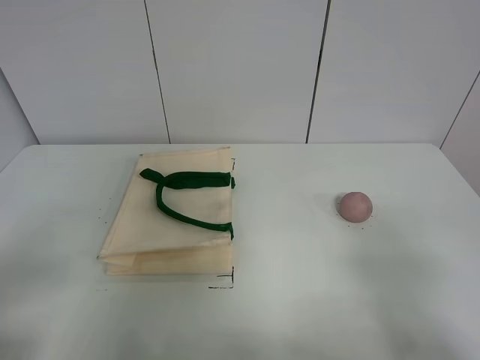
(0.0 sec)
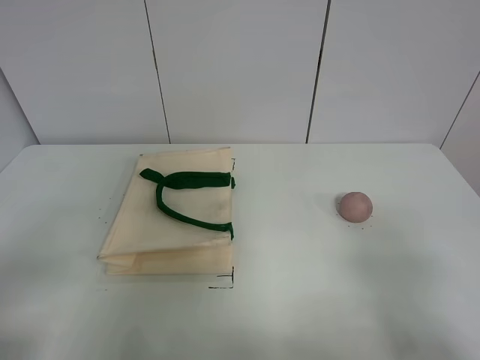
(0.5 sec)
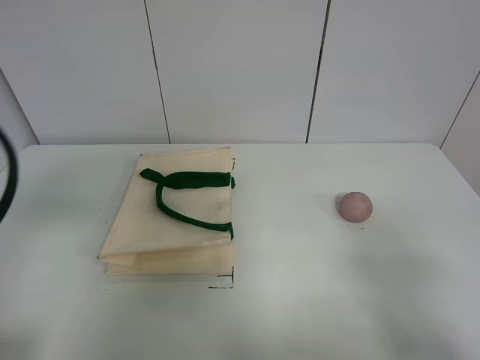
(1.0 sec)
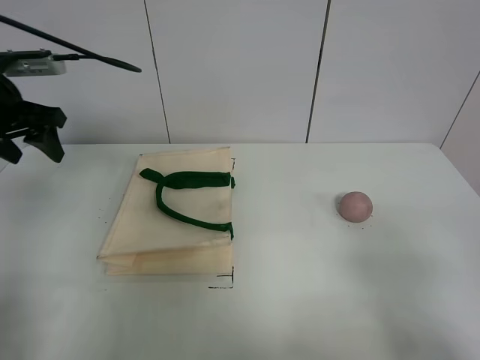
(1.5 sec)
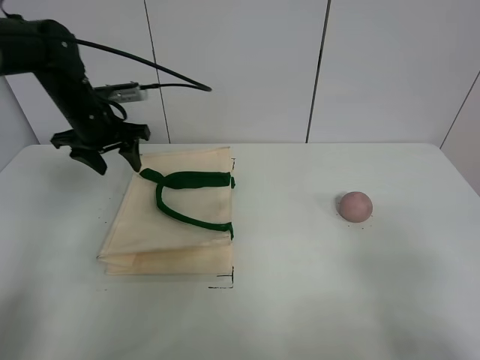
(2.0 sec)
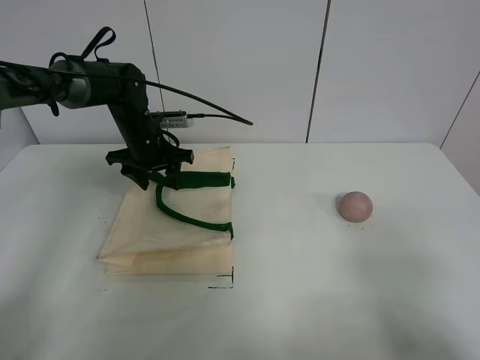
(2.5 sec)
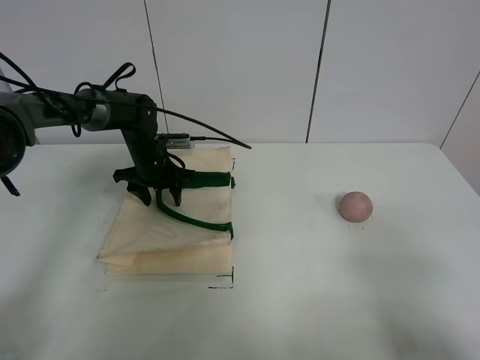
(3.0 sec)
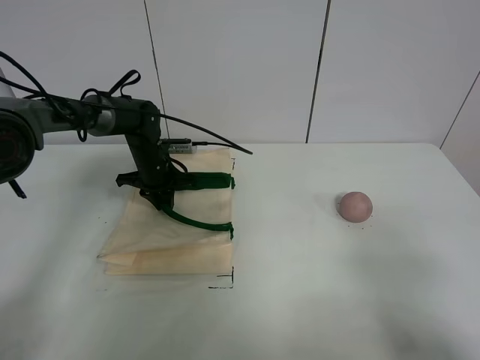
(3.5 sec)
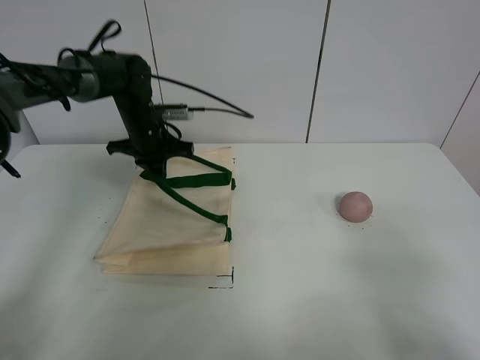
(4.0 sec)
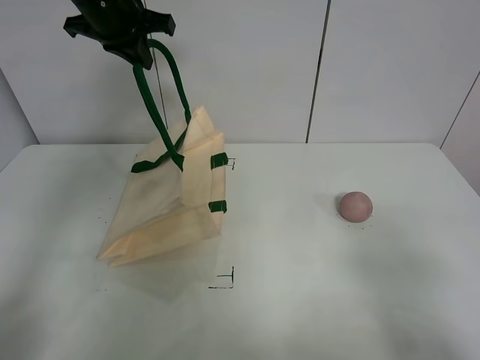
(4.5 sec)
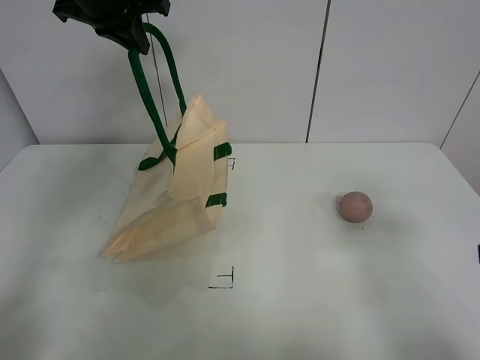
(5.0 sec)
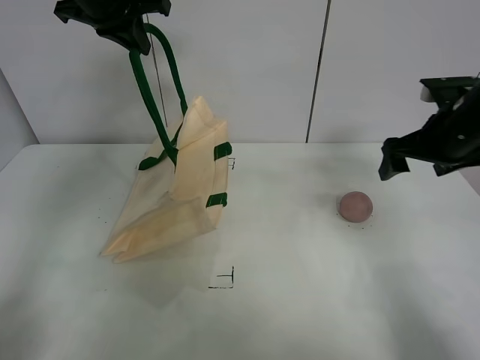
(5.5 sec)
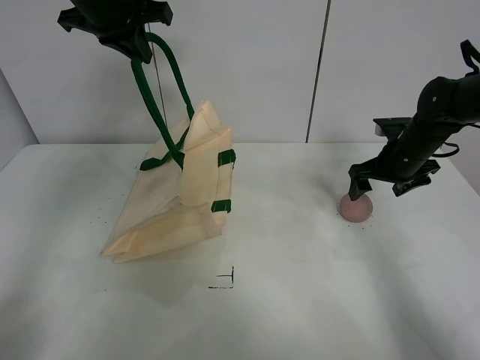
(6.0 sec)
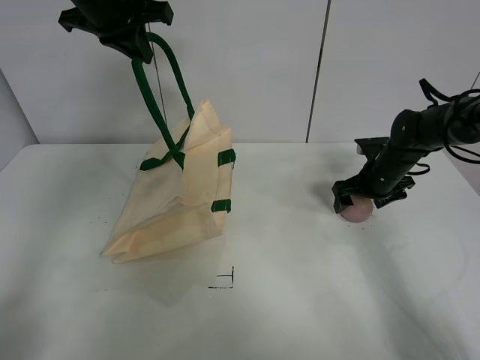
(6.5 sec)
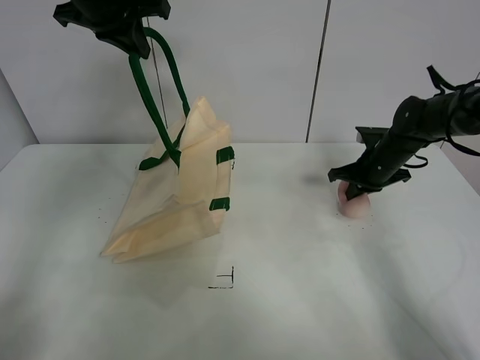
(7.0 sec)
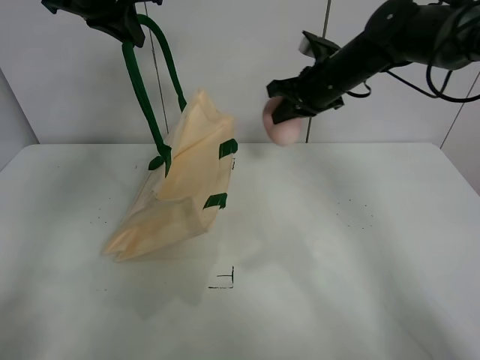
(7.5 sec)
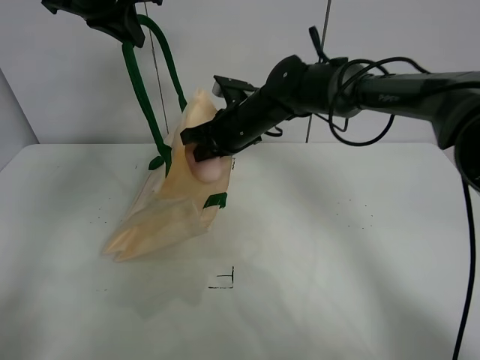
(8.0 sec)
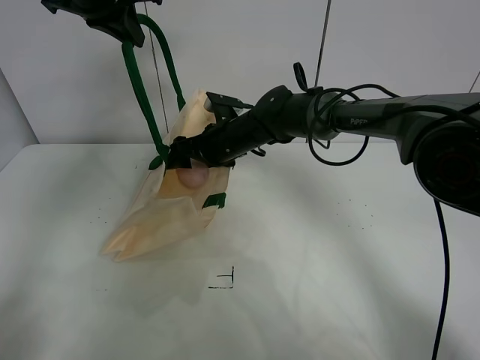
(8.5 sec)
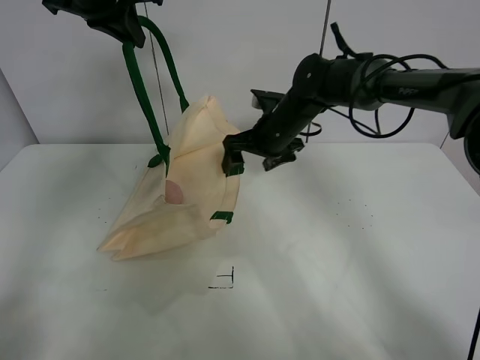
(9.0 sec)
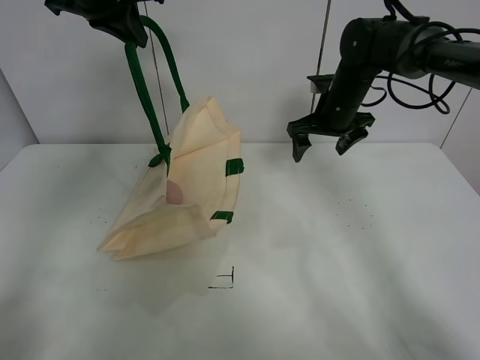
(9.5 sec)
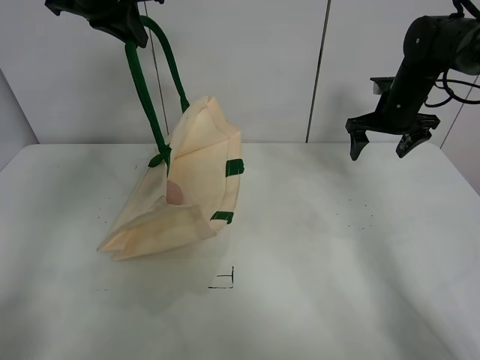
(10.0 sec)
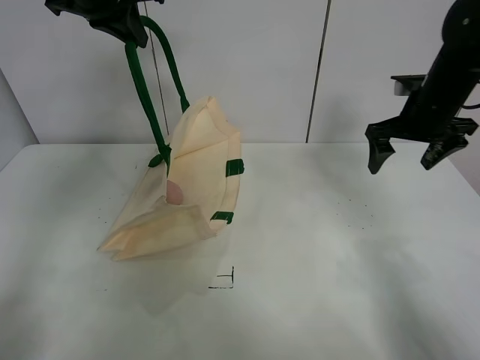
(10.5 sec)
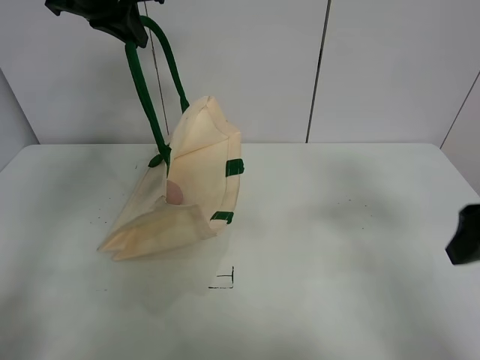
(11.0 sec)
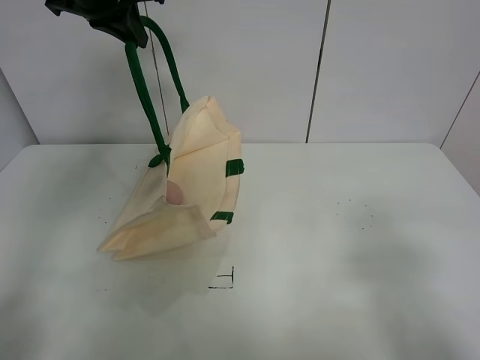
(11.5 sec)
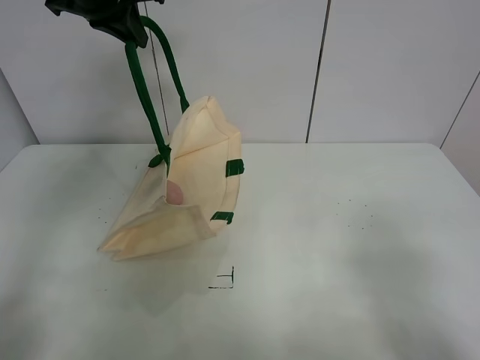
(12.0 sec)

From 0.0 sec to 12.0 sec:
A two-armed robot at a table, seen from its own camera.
Task of the whole recording: open the white linen bag and put the peach in the bag.
Step, from 0.0 sec to 4.5 sec: Lift the handbag with left gripper.
Step, from 5.0 sec to 7.0 sec: Grasp the peach with right gripper.
Step, from 7.5 sec to 8.5 sec: Place the peach in the handbag with right gripper.
From 0.0 sec to 2.0 sec: The left gripper moves forward, about 40 cm.
From 2.0 sec to 4.0 sec: The left gripper moves to the right, approximately 5 cm, goes downward and returns, approximately 15 cm each way, and closes.
From 4.0 sec to 6.0 sec: The right gripper moves forward, some 40 cm. Meanwhile the left gripper shifts roughly 20 cm upward.
From 6.0 sec to 8.0 sec: The right gripper goes approximately 25 cm to the left, and closes.
From 8.0 sec to 10.0 sec: The right gripper heads to the right, covering roughly 25 cm, and opens its fingers.
From 10.0 sec to 12.0 sec: The right gripper moves backward, roughly 50 cm.

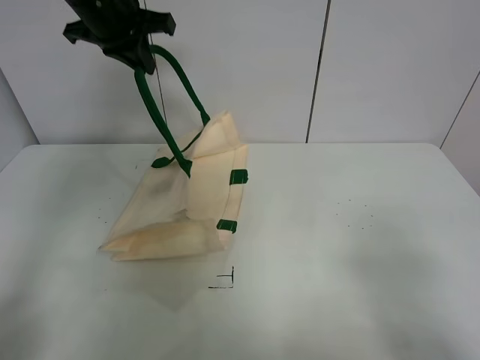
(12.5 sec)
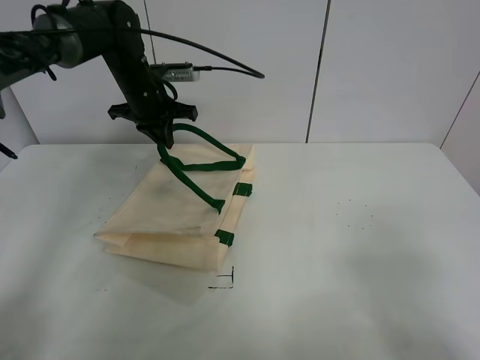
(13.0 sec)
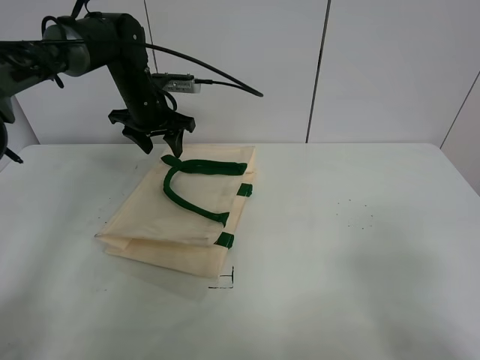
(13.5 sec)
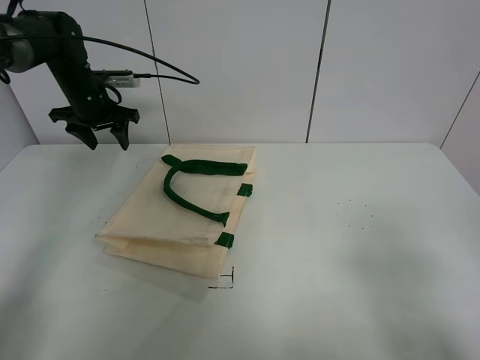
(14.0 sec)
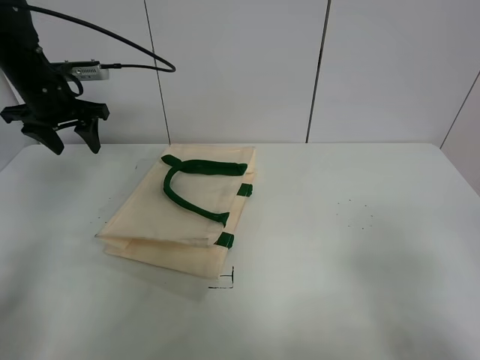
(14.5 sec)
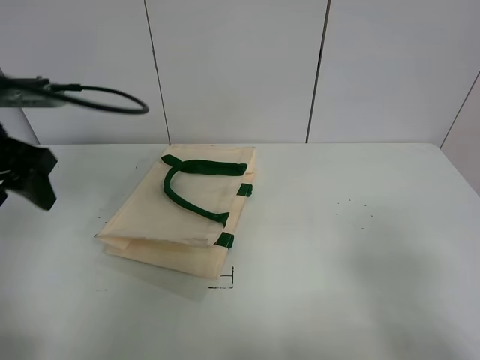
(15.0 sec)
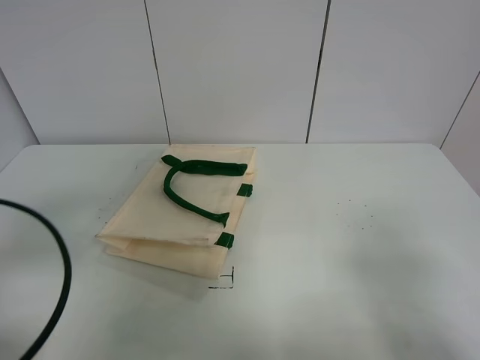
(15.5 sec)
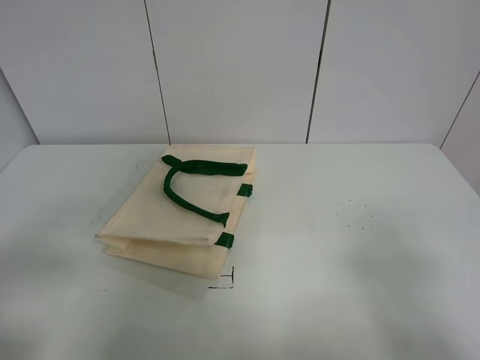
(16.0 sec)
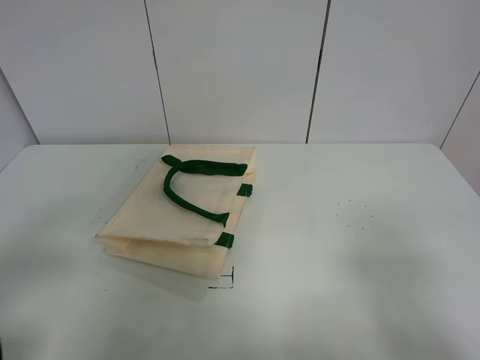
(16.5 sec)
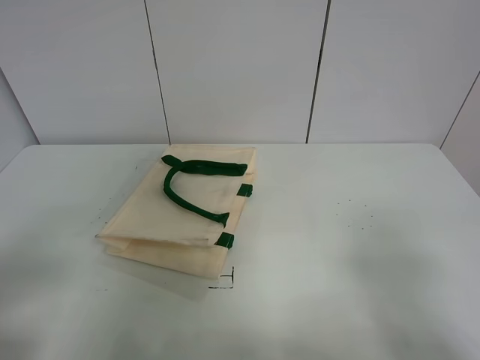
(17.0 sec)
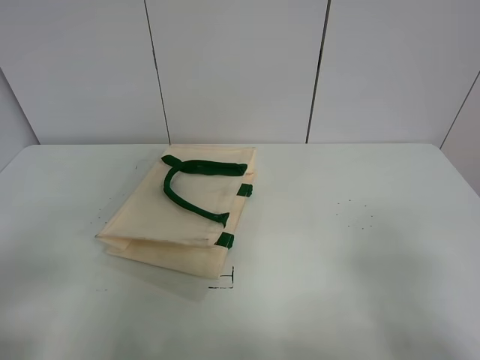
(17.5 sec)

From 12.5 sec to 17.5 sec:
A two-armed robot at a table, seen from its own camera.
Task of the whole recording: open the white linen bag and put the peach in the bag.
From 12.5 sec to 15.0 sec: The left gripper goes about 25 cm backward, to the left and downward, and opens up.
From 15.0 sec to 17.5 sec: The left gripper moves backward, roughly 25 cm.
